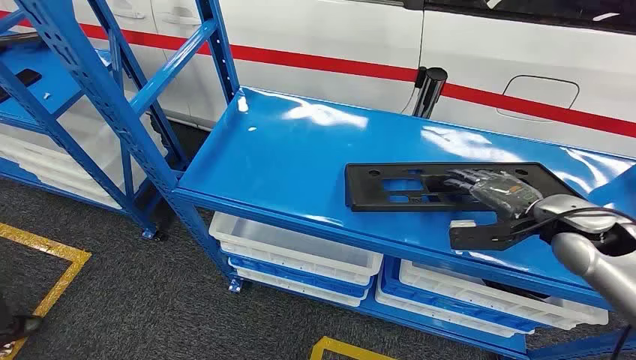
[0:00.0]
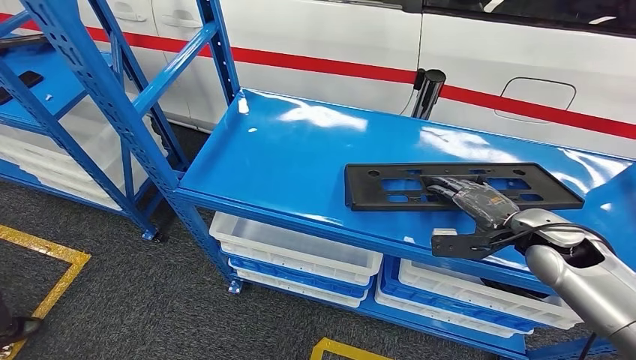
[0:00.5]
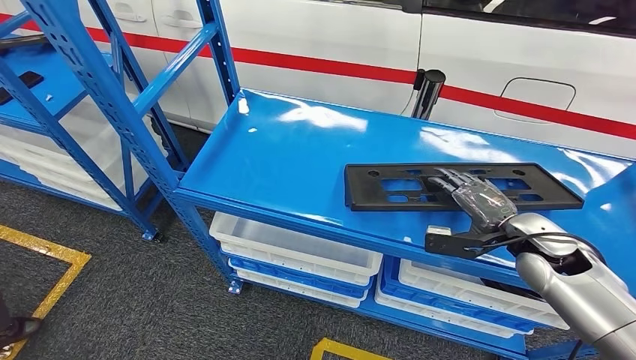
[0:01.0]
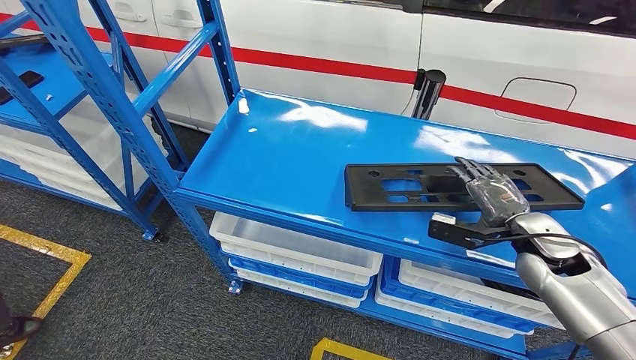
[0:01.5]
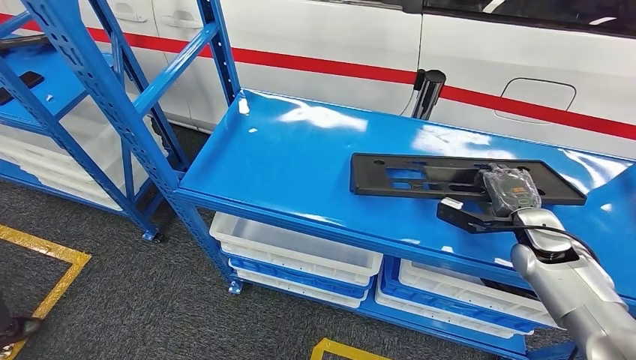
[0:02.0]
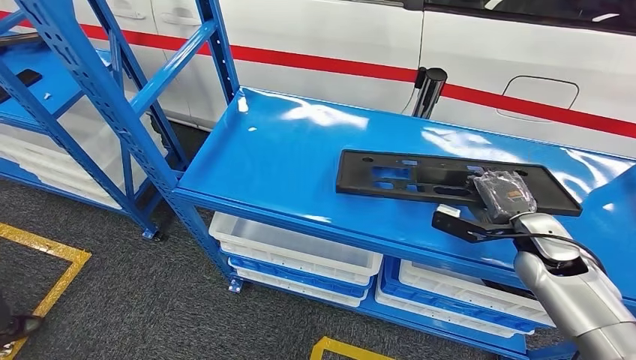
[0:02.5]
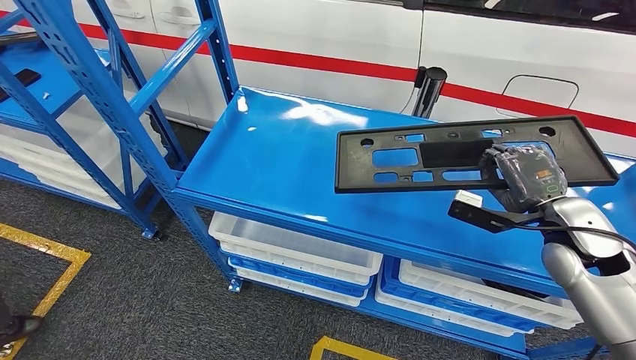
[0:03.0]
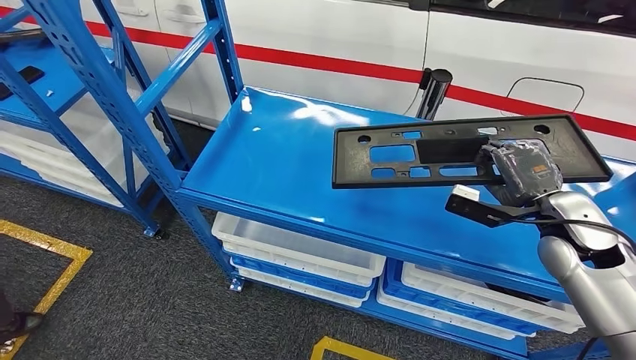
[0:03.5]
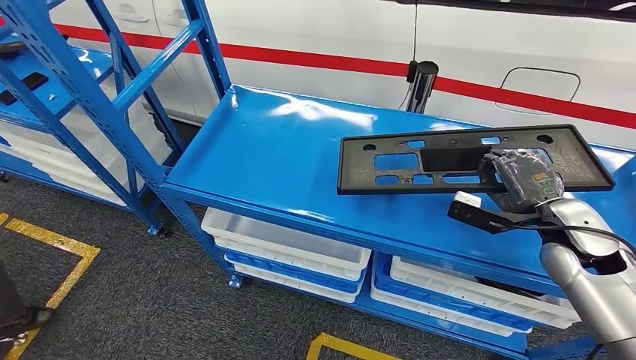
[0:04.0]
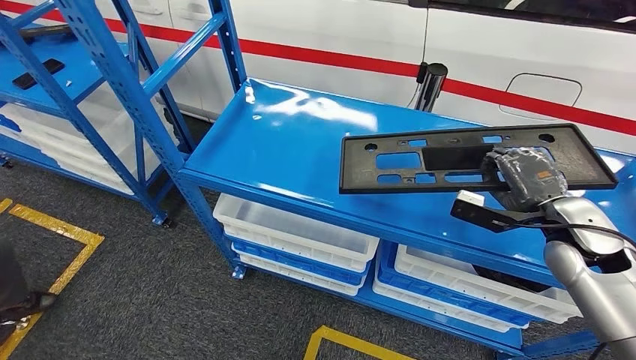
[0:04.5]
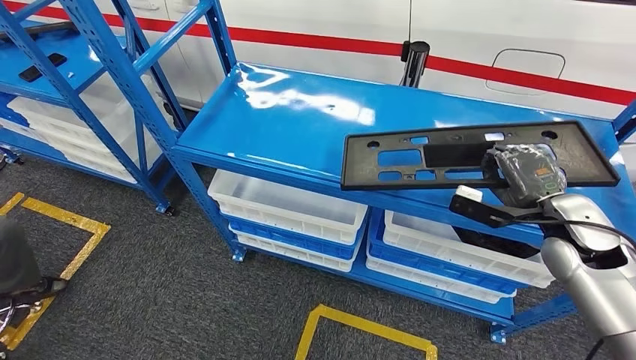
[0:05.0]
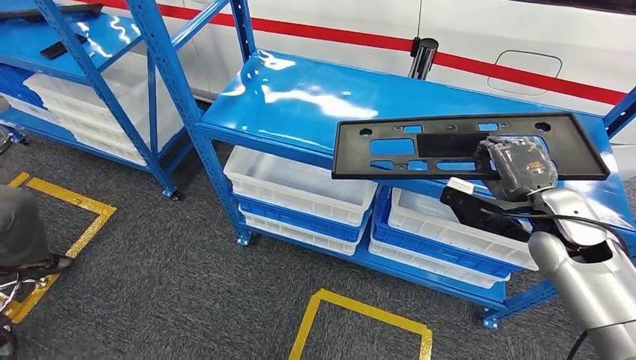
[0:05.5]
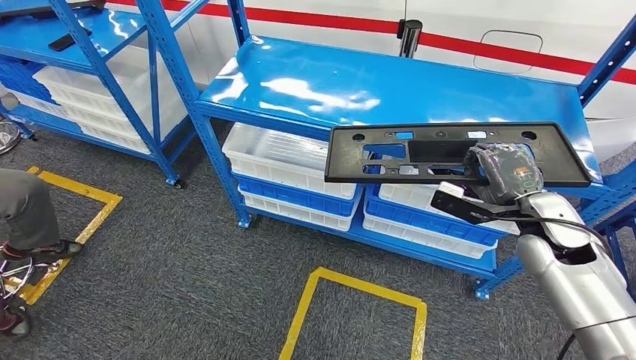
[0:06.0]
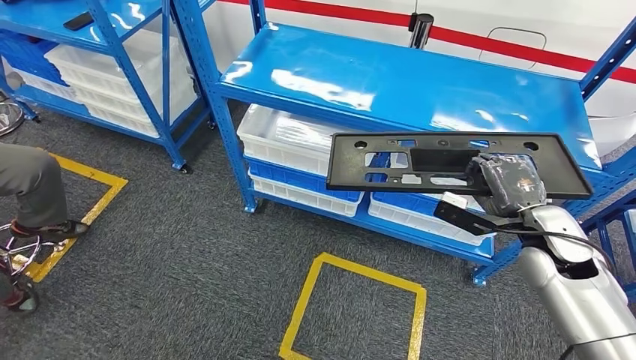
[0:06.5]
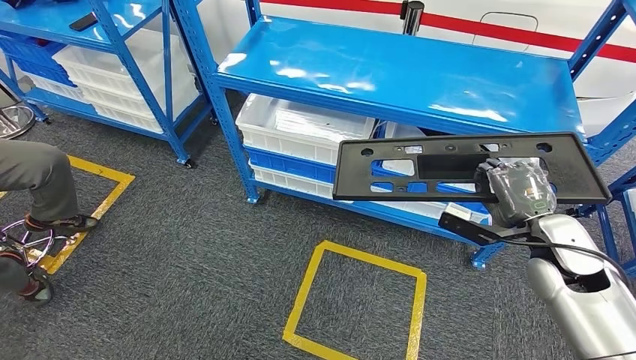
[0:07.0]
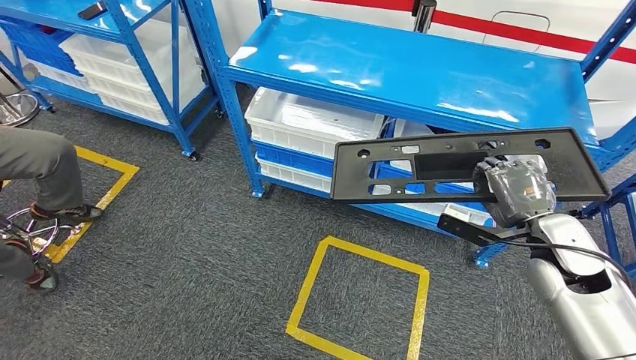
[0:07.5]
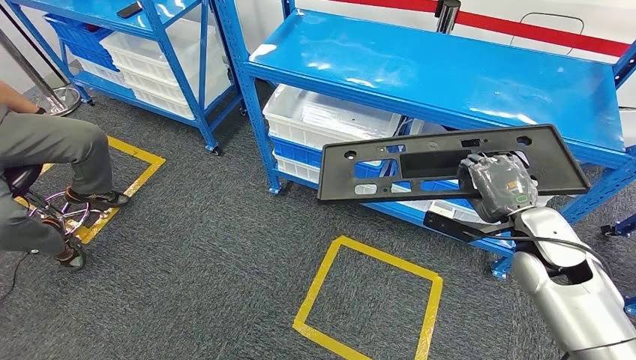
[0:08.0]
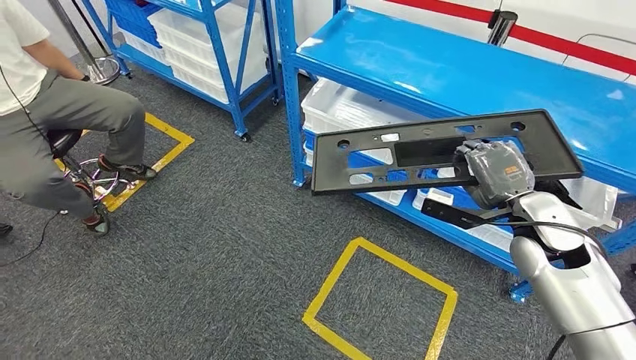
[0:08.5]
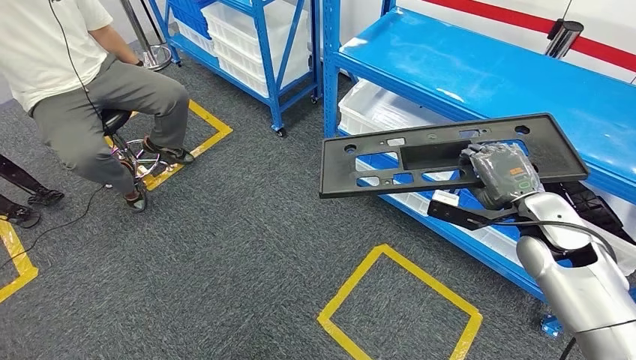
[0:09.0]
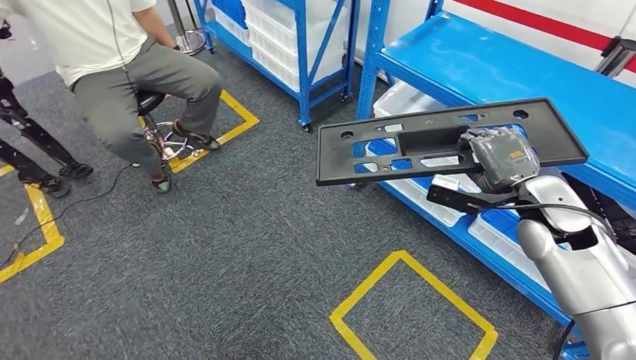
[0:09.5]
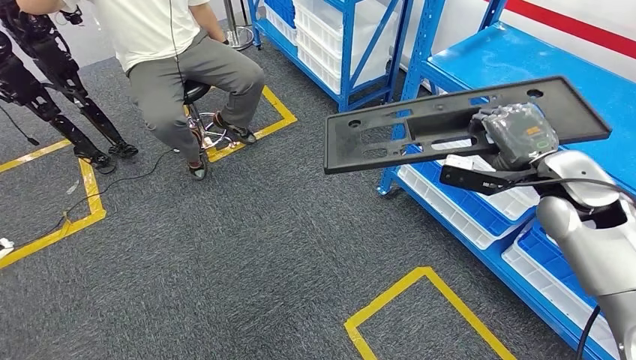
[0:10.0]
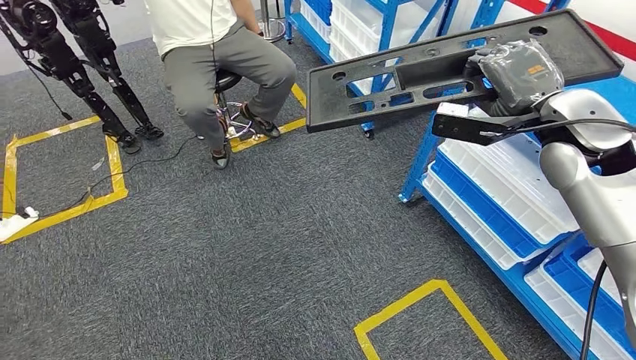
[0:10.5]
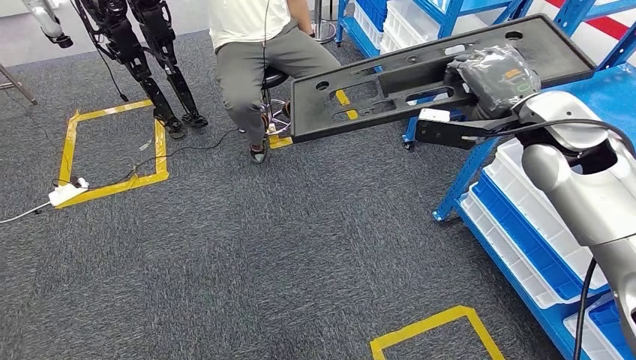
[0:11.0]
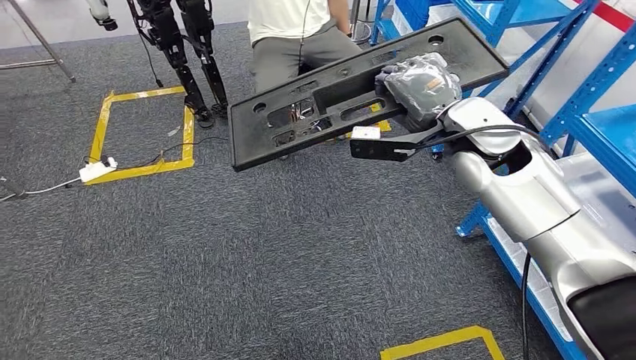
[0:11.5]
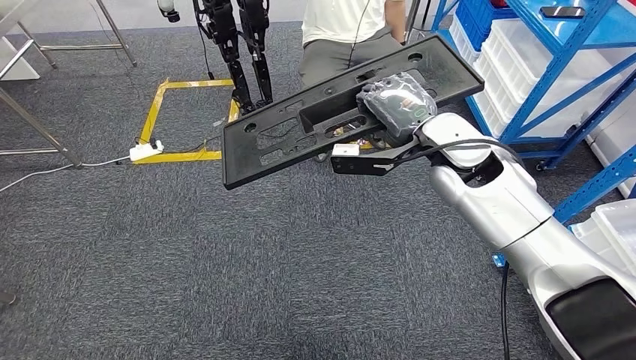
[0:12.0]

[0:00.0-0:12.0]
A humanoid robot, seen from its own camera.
Step, 0:00.0 to 0:08.0: Pick up the large material from the shelf.

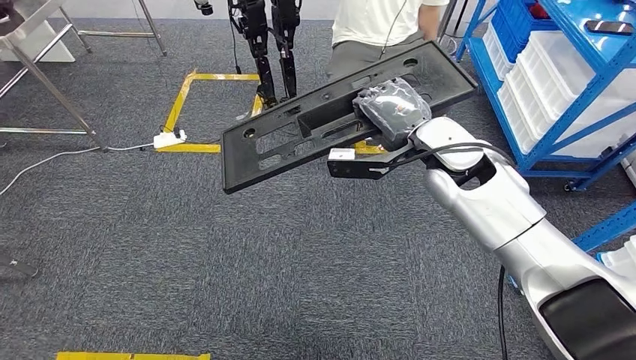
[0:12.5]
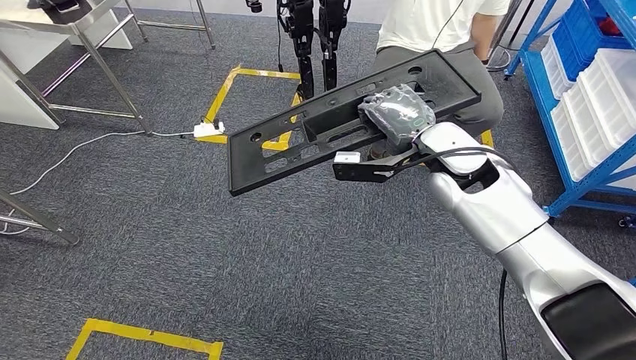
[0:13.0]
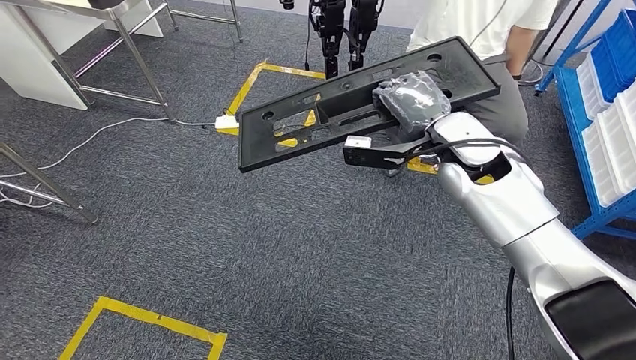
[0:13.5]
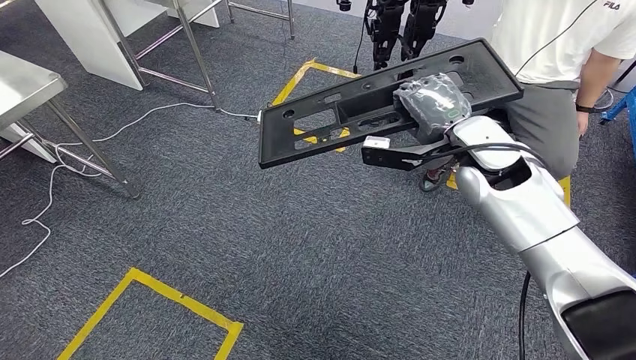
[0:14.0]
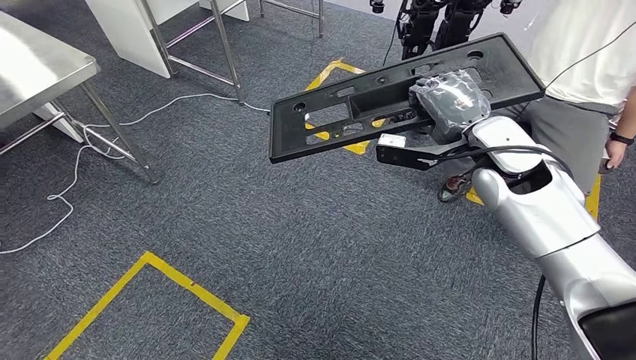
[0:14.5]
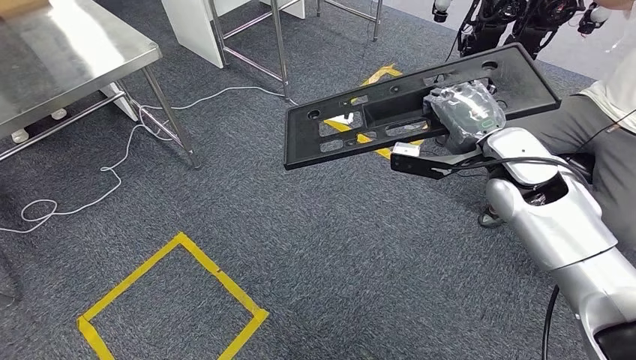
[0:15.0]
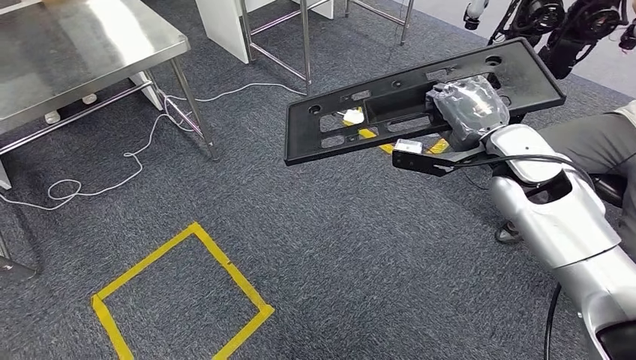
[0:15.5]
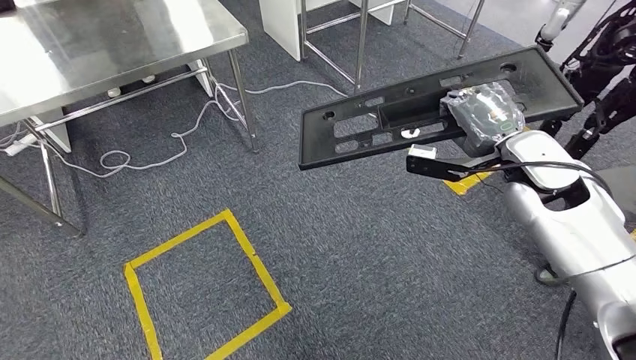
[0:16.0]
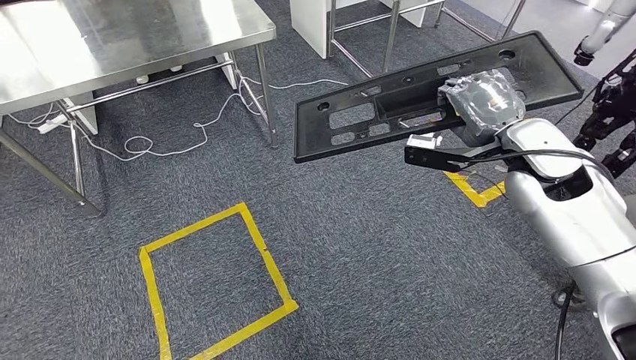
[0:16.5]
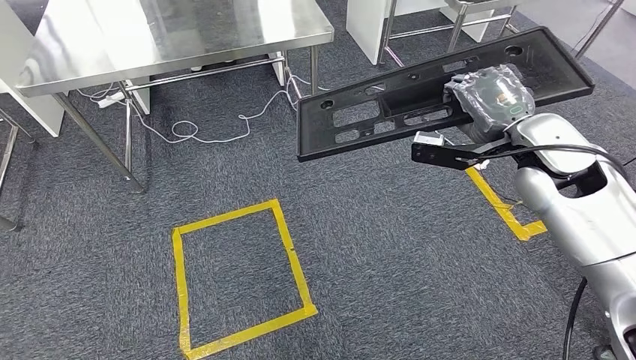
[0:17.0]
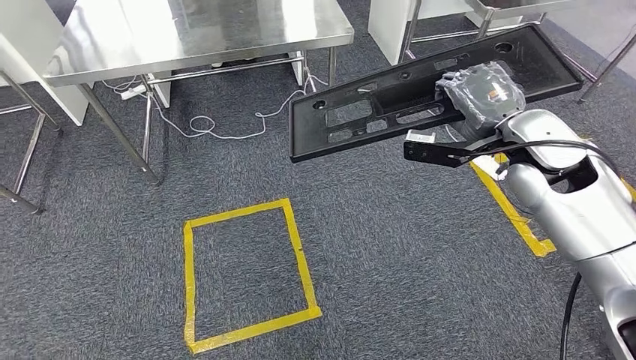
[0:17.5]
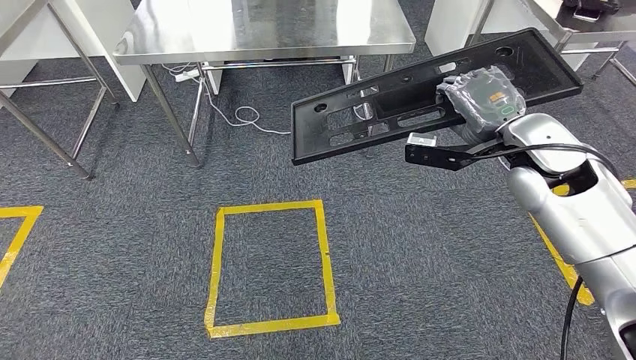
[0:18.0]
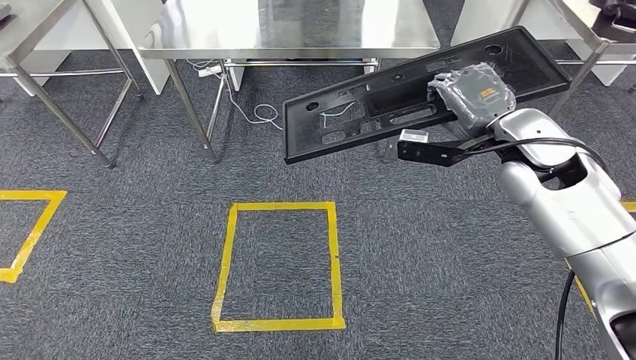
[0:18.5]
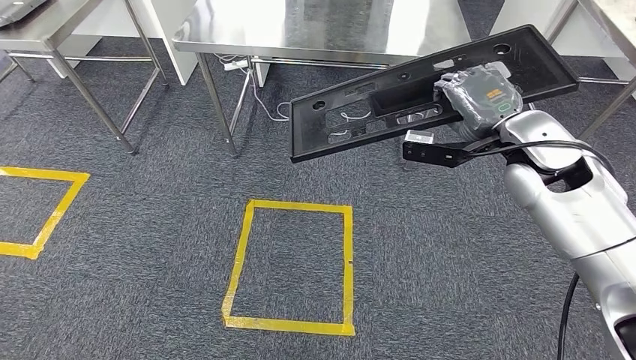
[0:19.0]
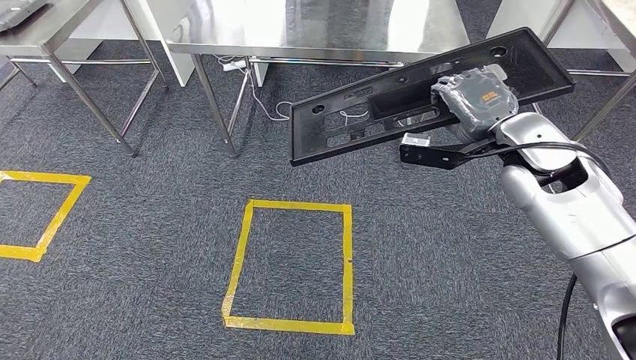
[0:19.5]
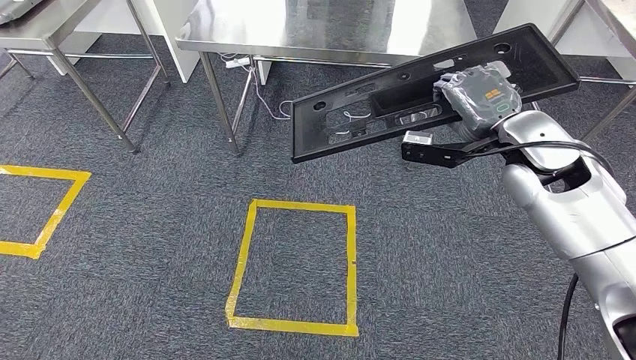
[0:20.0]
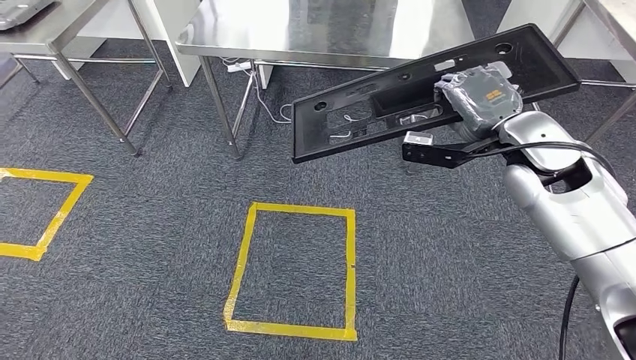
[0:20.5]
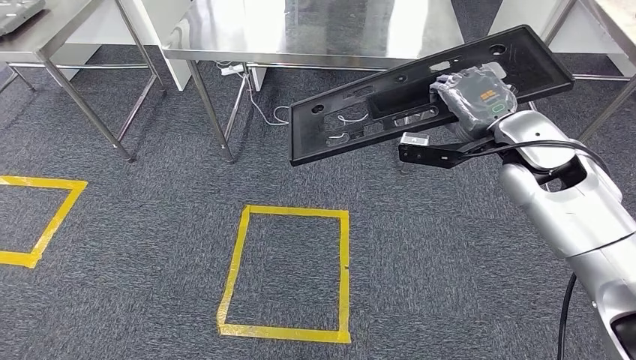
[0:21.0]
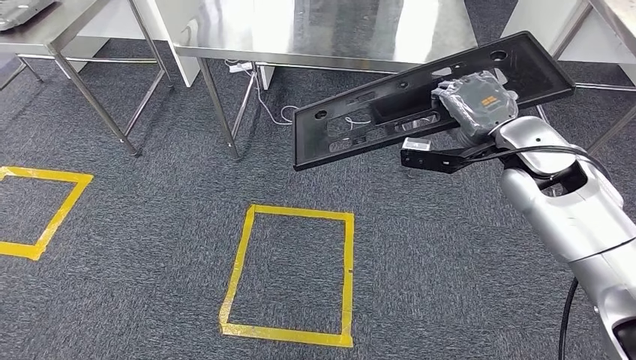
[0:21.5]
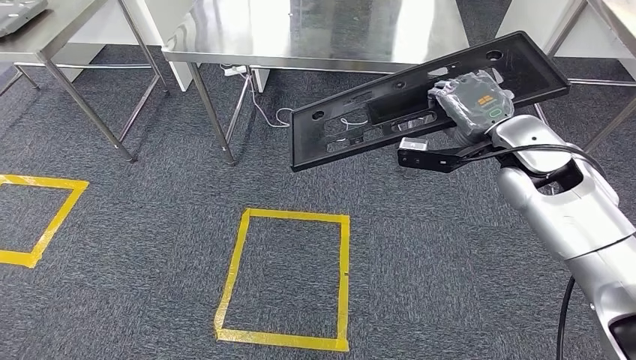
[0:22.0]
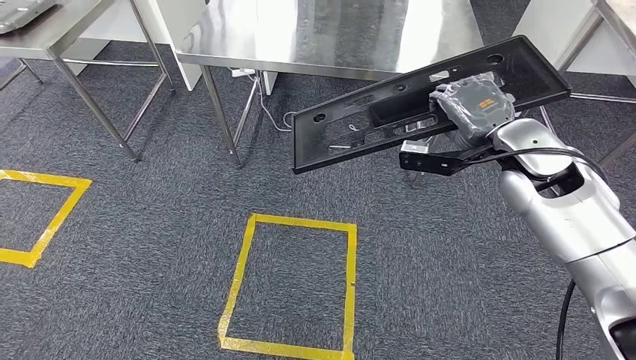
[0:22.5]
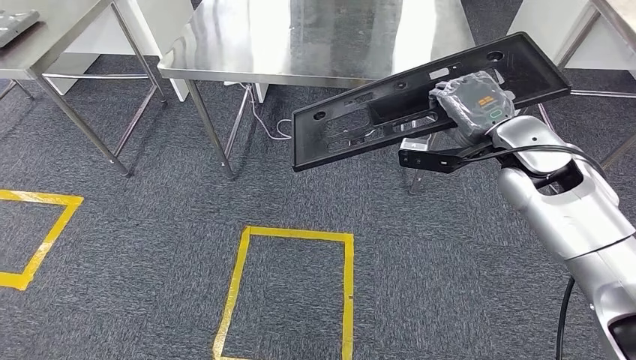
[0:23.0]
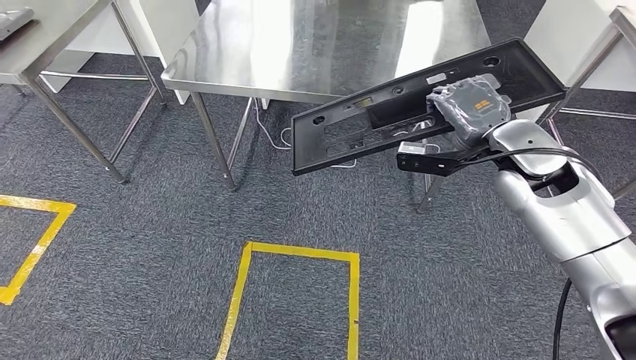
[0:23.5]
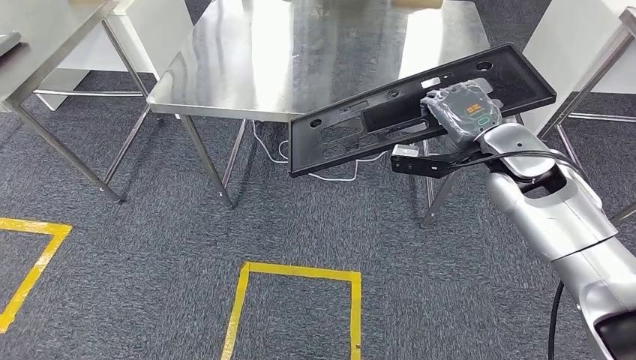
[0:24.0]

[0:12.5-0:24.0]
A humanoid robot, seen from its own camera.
Step, 0:12.5 to 0:20.5: Move the large material to the front of the workbench.
